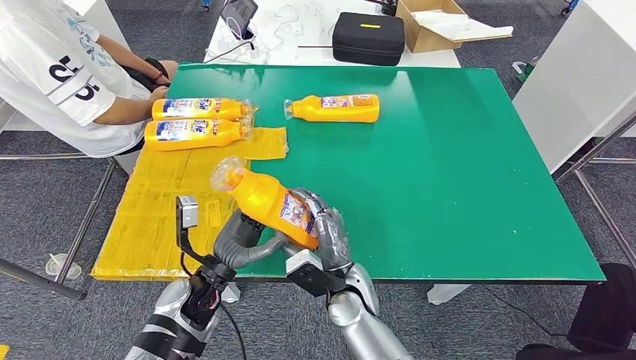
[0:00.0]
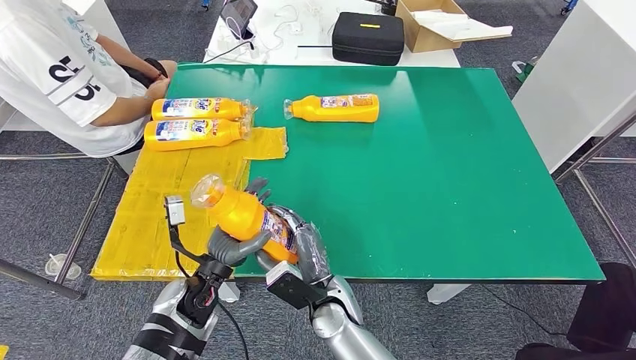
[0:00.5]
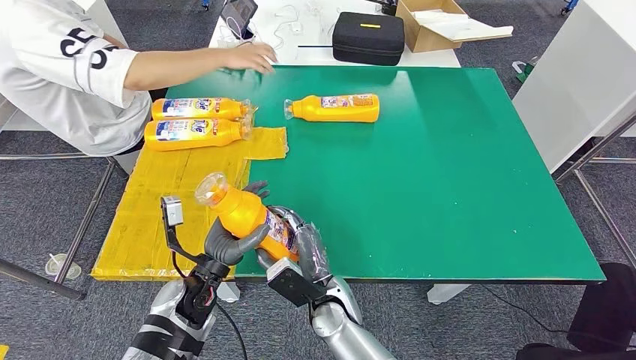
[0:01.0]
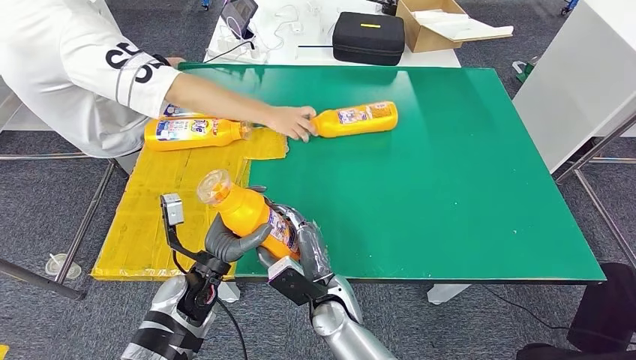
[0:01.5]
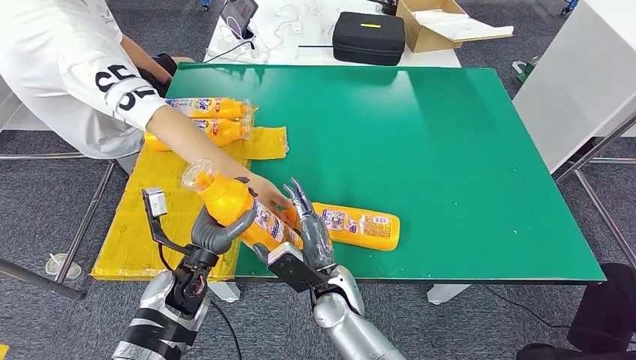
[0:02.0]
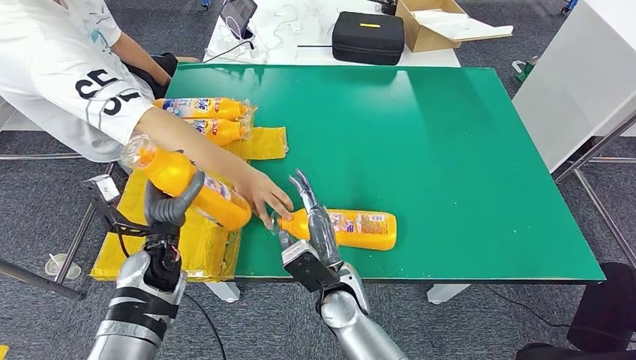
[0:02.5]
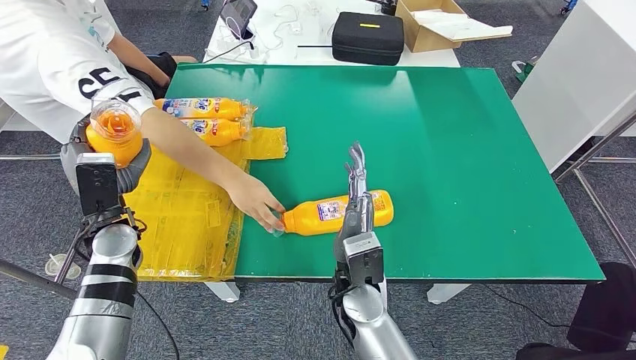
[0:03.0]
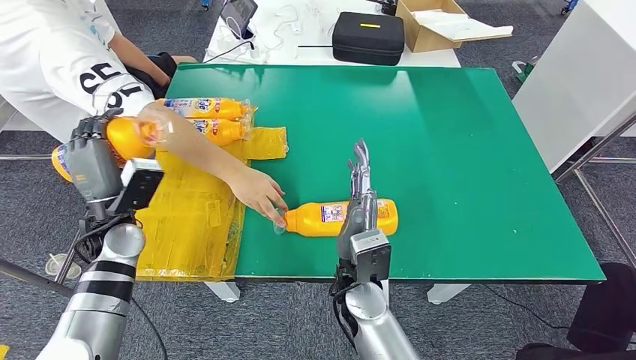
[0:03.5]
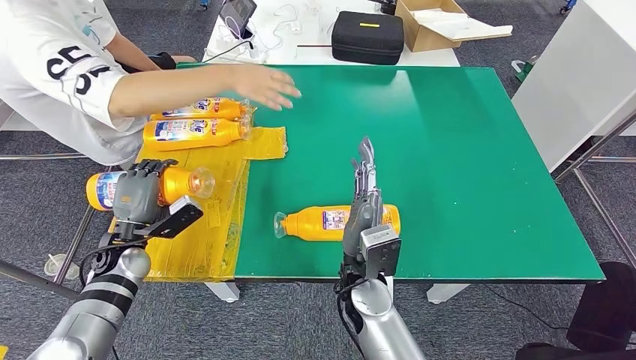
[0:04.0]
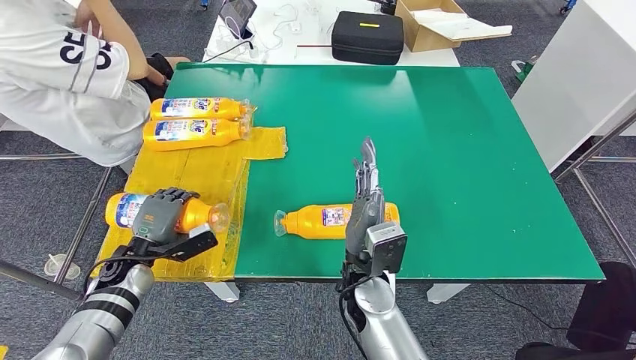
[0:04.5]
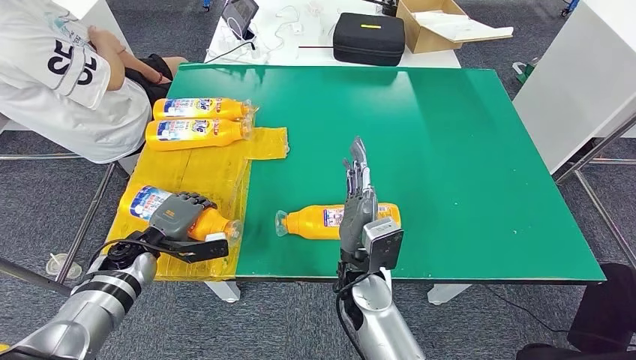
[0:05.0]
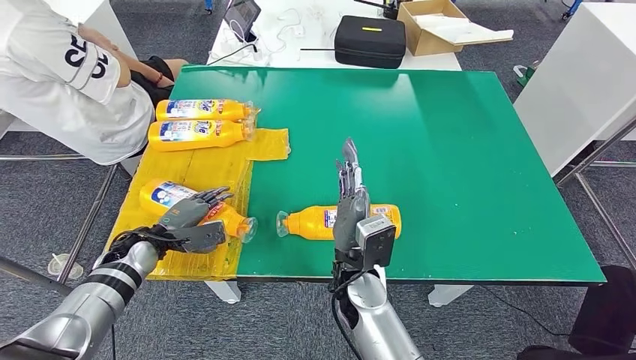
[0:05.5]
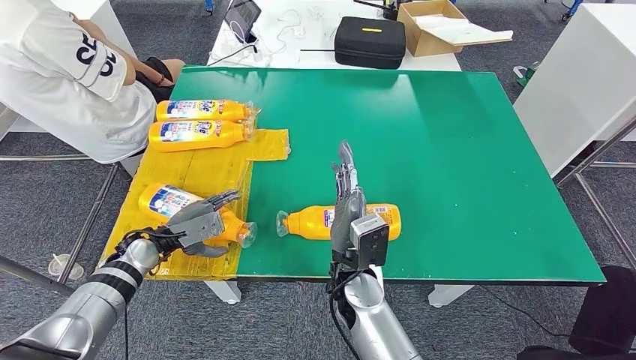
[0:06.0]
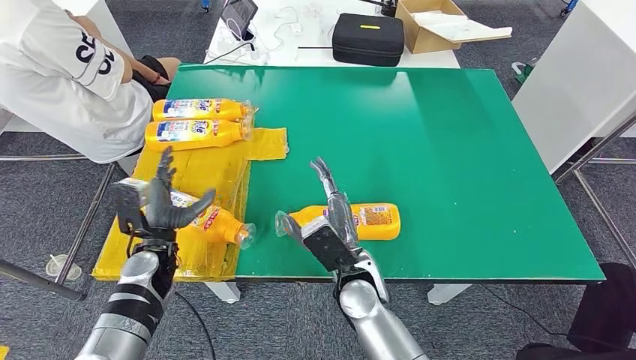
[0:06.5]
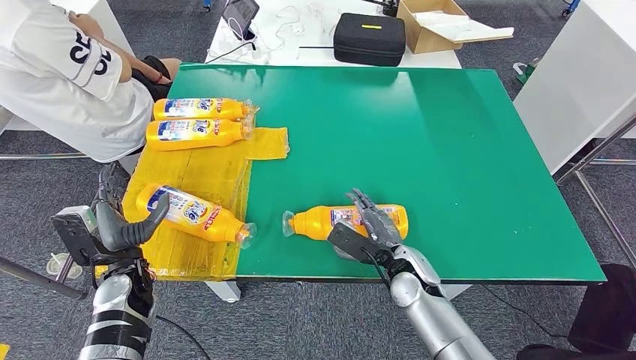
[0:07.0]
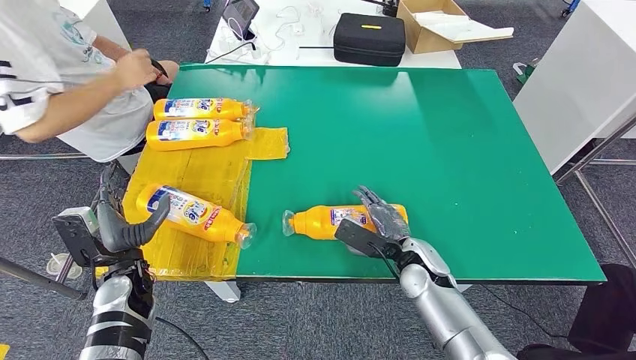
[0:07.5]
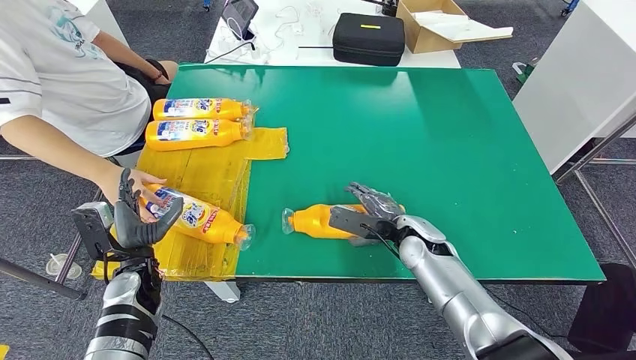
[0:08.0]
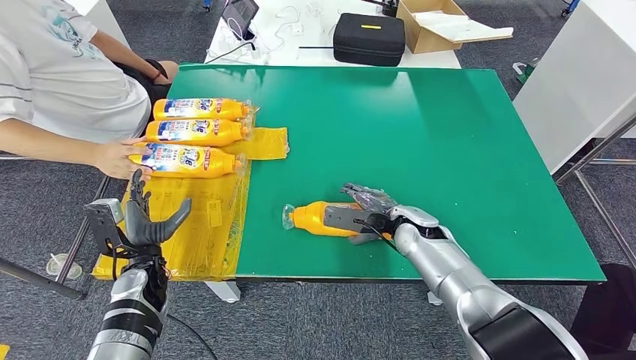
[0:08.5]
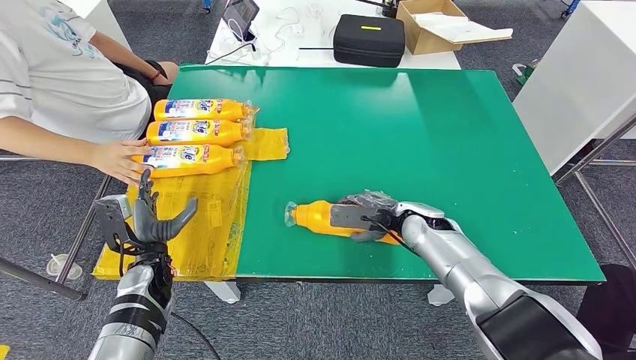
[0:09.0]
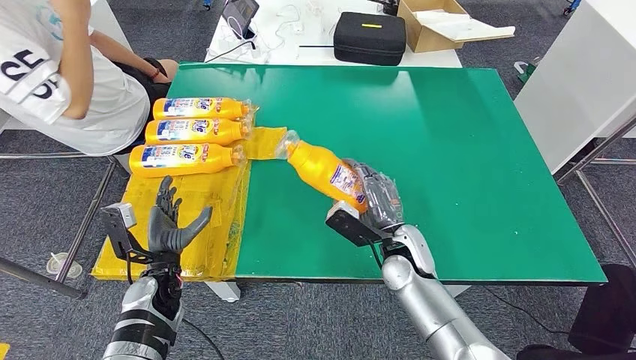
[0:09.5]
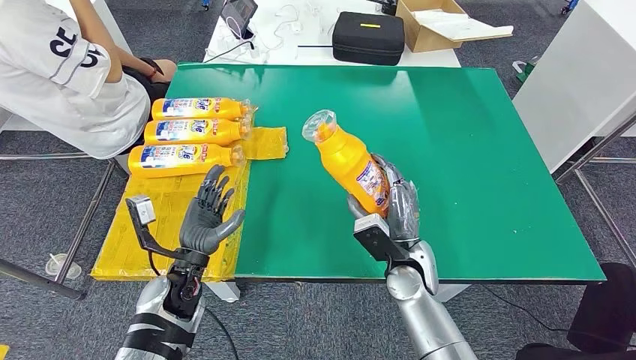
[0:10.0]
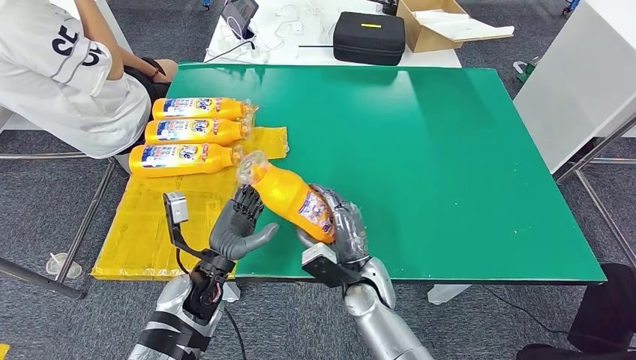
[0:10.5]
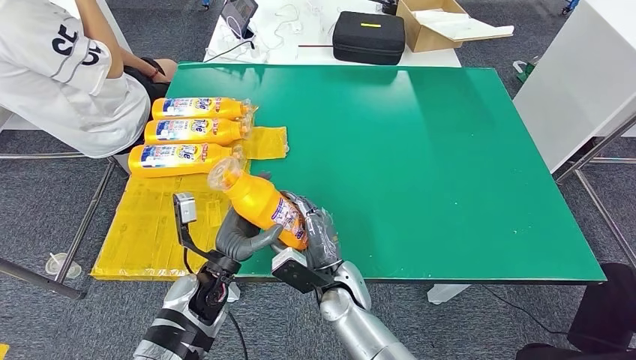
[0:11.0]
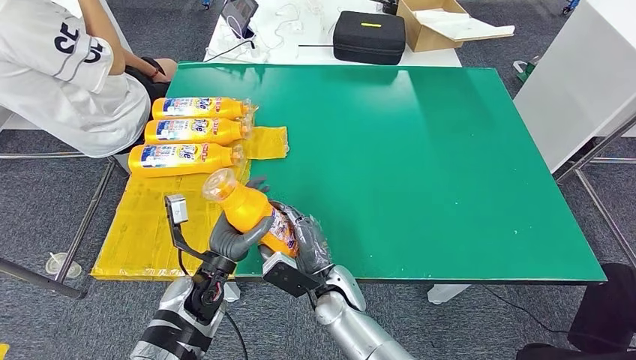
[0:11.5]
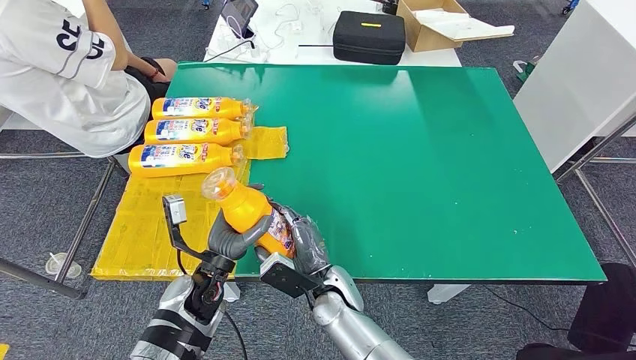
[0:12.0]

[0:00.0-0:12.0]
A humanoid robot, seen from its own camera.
Step, 0:01.5 to 0:08.0: Flip the fast-moving consumer goods bottle to the front side.
Step, 0:08.5 to 0:11.0: Pick up the fast-moving consumer goods bottle from the table.
0:10.0 to 0:12.0: The right hand travels to the left by approximately 15 cm.

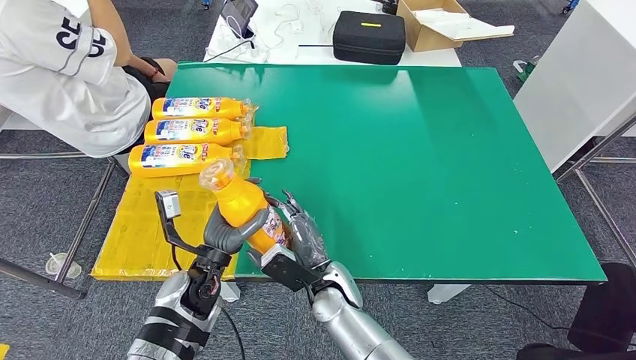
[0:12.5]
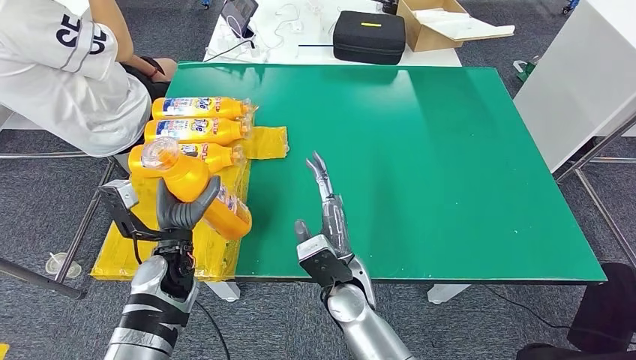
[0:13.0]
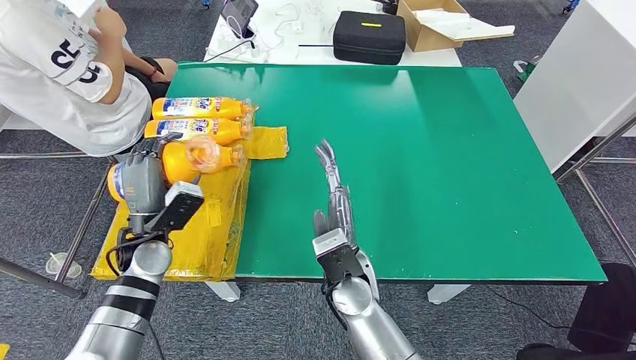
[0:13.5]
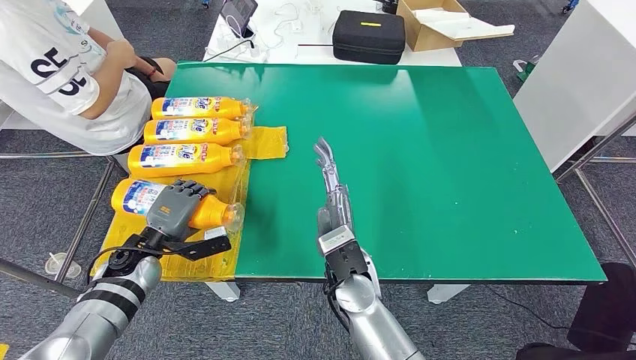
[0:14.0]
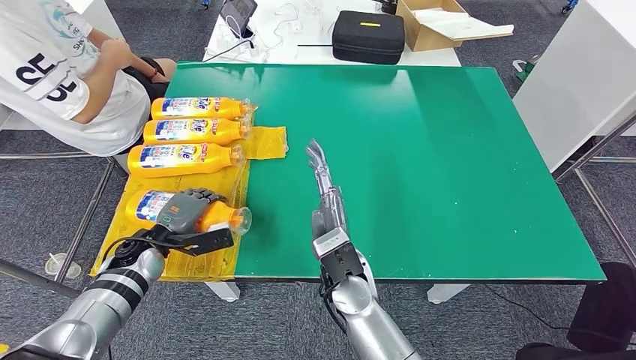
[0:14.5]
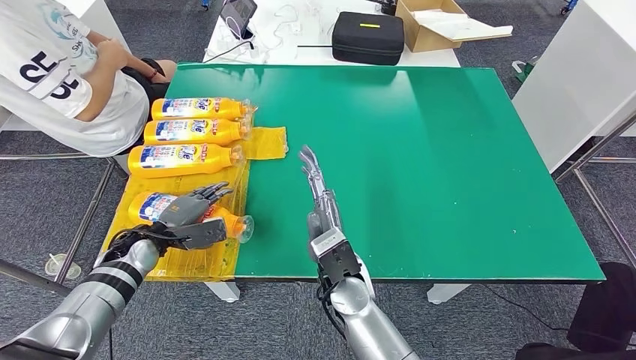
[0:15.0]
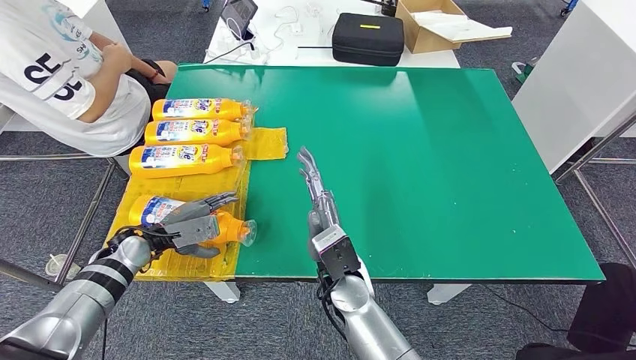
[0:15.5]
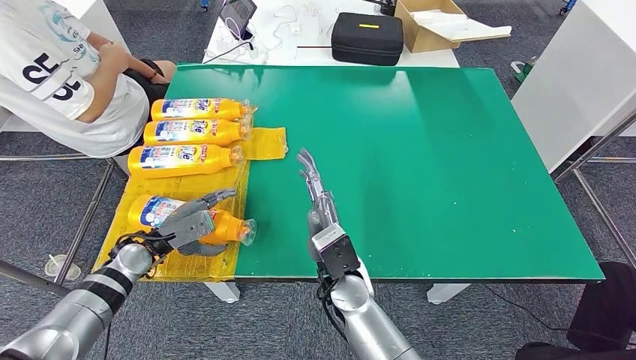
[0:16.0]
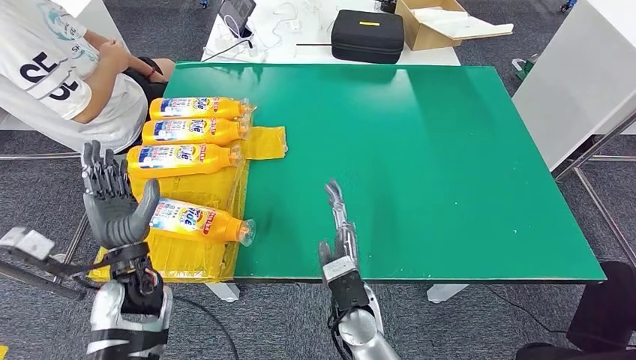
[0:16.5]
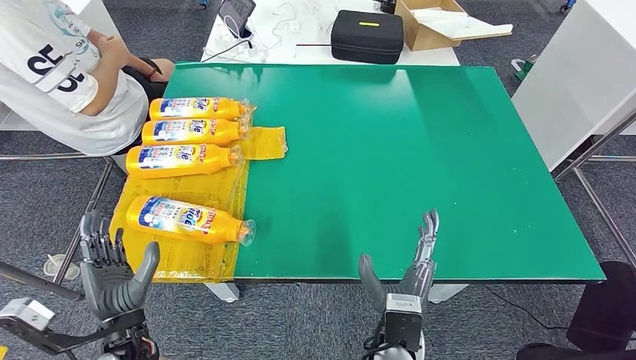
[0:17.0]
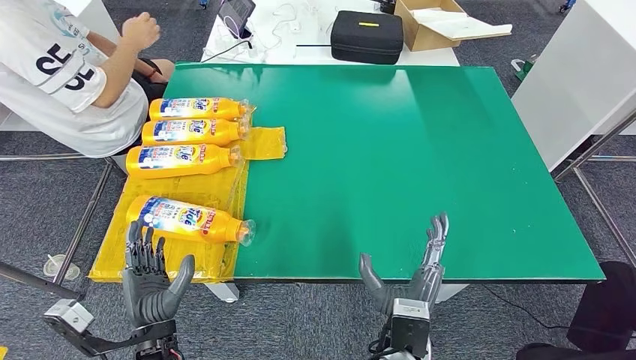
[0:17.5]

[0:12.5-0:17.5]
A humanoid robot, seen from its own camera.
Step, 0:12.5 to 0:17.5: Flip the fast-moving consumer goods bottle to the front side.
0:12.5 to 0:15.0: The right hand heads upward, covering about 5 cm, while the left hand heads to the left and forward, covering approximately 15 cm.
0:15.0 to 0:17.5: The left hand shifts approximately 25 cm backward and to the right, while the right hand heads backward and to the right, covering some 10 cm.
